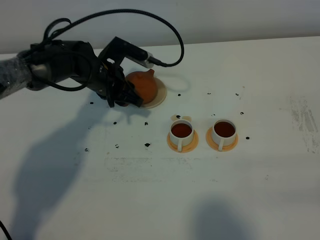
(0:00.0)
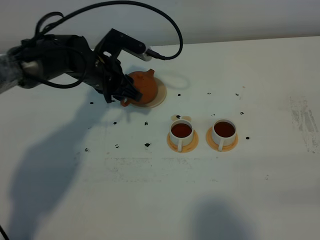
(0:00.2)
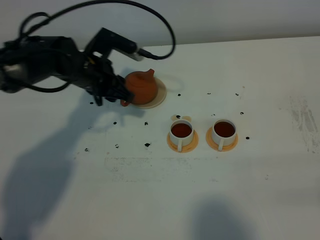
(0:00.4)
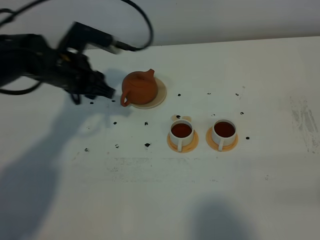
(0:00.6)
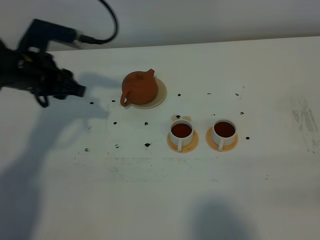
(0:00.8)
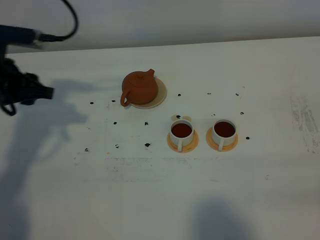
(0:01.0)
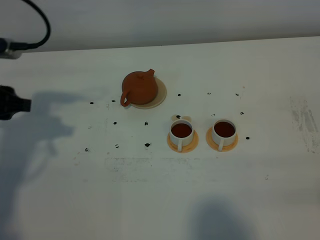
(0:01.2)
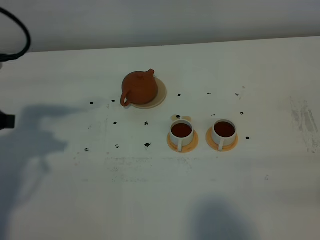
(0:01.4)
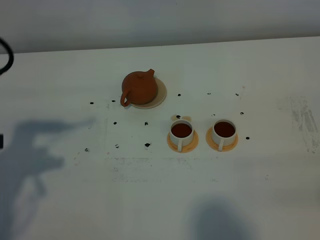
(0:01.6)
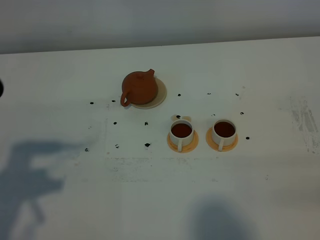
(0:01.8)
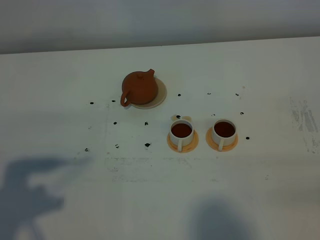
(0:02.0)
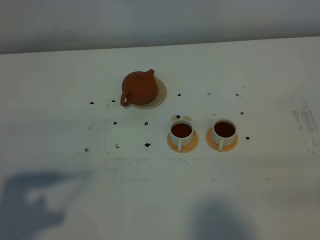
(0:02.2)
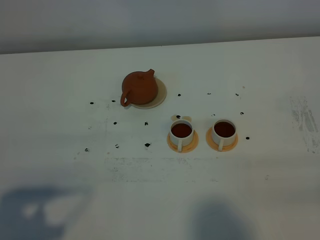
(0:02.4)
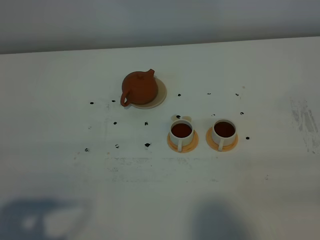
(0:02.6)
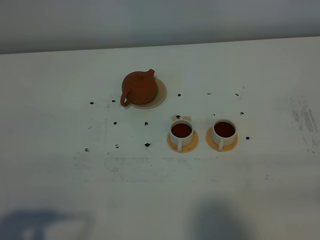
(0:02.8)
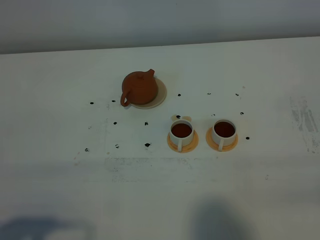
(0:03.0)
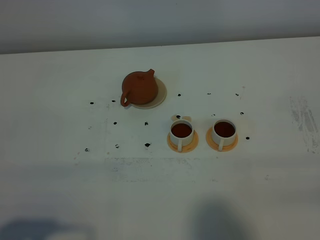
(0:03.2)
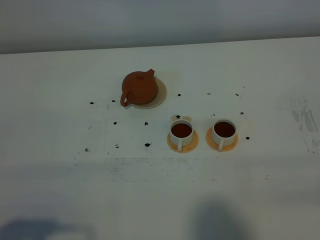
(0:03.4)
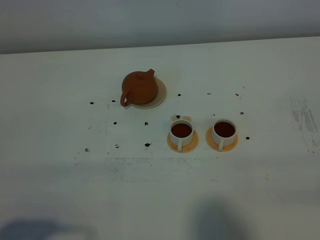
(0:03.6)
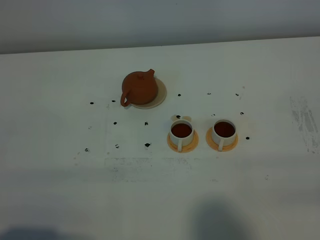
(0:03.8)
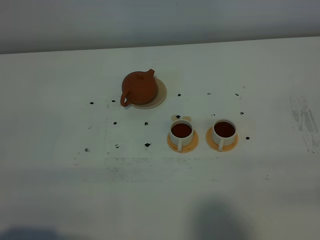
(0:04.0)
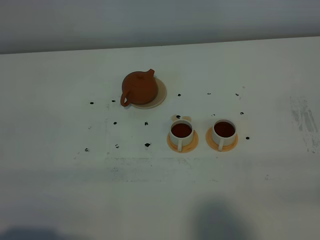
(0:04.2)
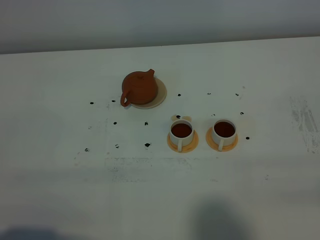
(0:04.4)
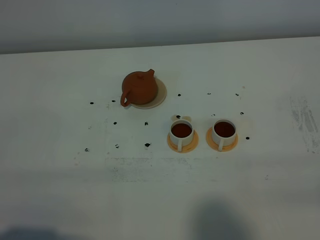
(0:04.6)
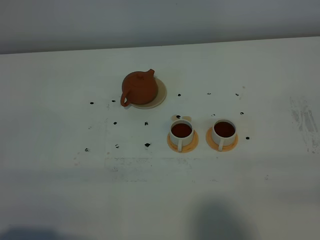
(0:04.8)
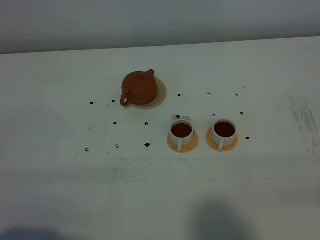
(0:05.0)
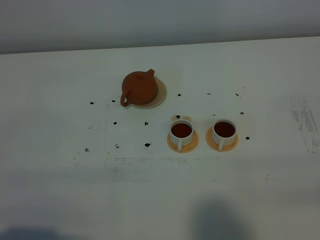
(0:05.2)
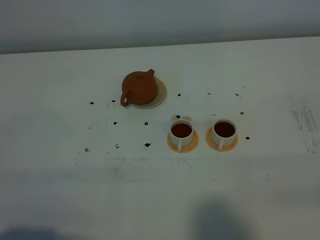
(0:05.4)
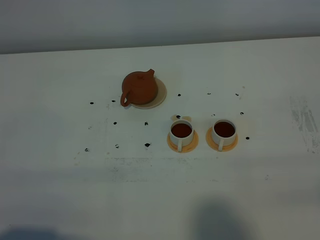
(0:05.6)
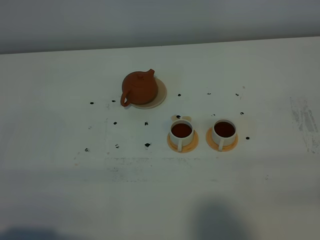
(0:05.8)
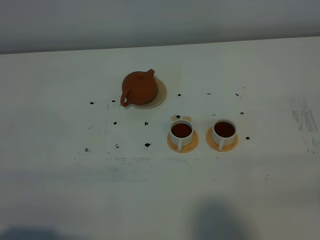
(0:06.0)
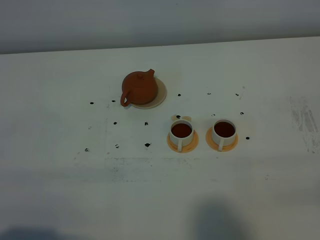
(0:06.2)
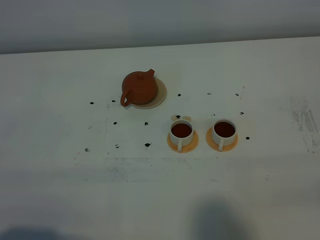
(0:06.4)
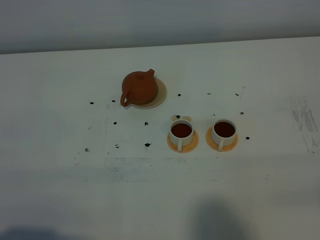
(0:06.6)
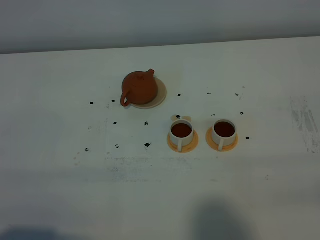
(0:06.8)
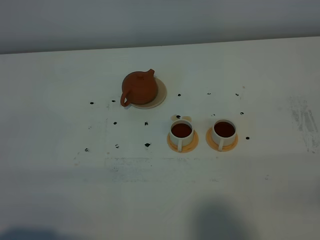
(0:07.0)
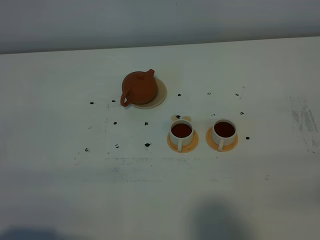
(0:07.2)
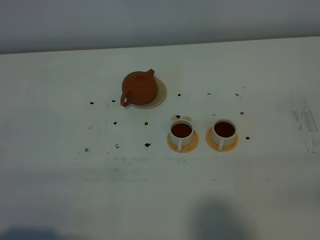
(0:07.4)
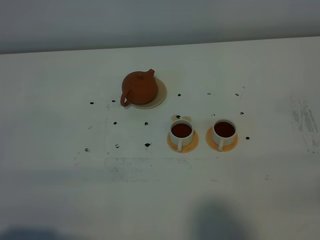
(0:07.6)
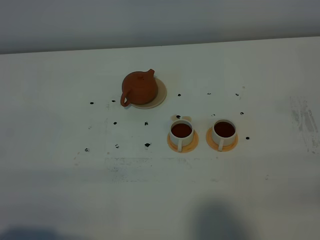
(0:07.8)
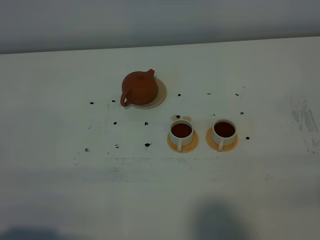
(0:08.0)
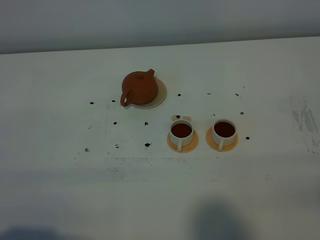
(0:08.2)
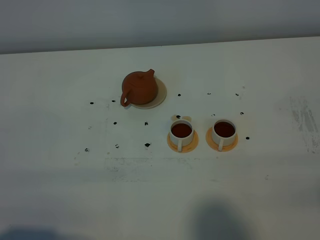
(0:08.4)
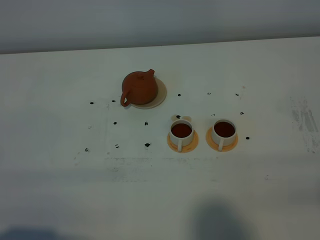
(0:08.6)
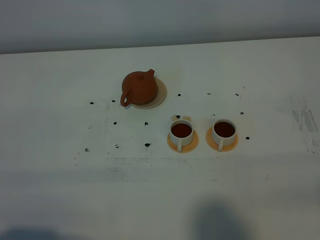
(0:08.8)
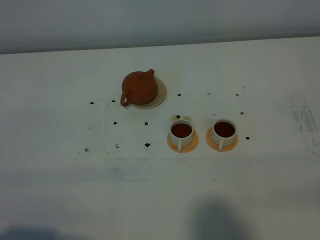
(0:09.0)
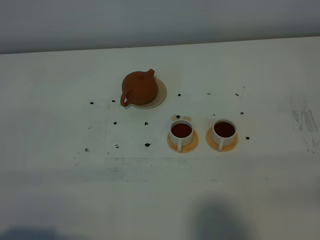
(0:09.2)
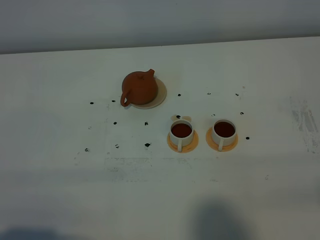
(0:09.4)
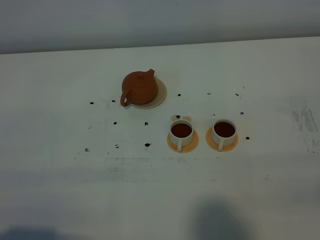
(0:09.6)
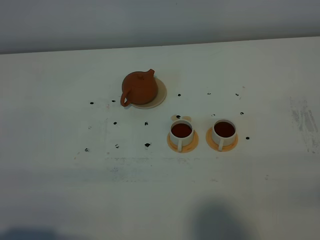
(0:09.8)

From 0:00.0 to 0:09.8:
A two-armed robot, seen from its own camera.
Task of the whole recording: grasp the brown teapot and pour the tea into the two white teacups one by one, put the brown teapot back in its original place.
From 0:00.0 to 0:01.4: The left gripper shifts about 30 cm backward, to the left and upward.
From 0:01.4 to 0:02.8: The left gripper is displaced backward by roughly 20 cm.
From 0:02.8 to 0:04.2: The grippers make only small movements.
From 0:04.2 to 0:09.8: Both grippers stay put.
